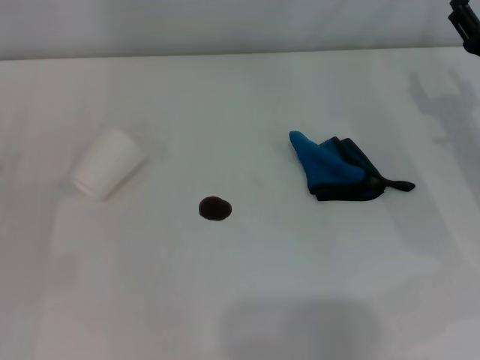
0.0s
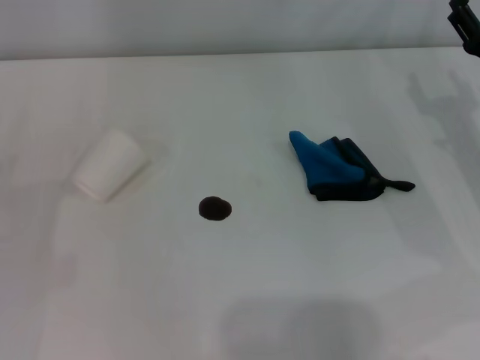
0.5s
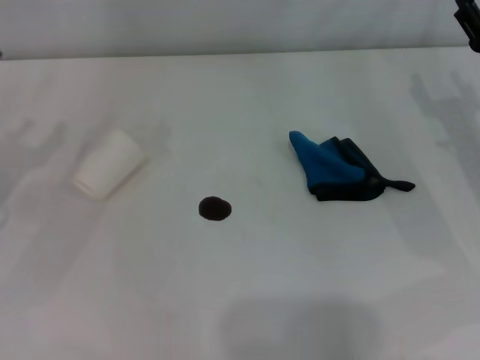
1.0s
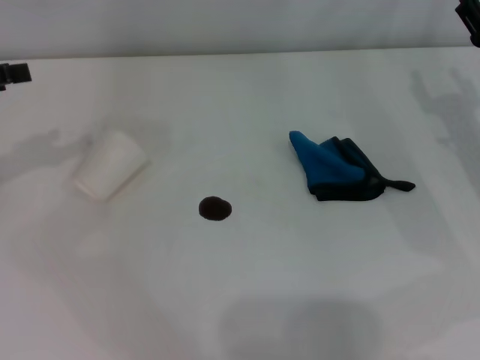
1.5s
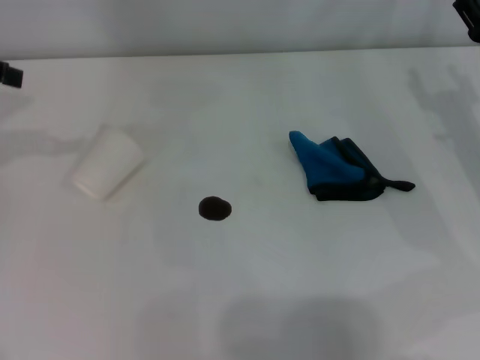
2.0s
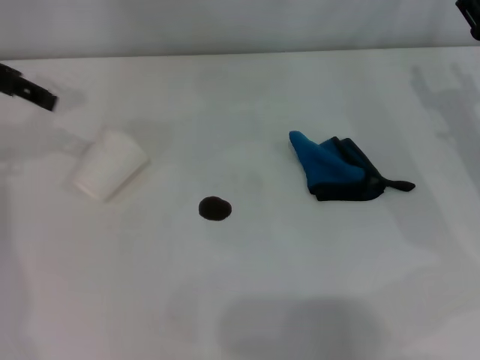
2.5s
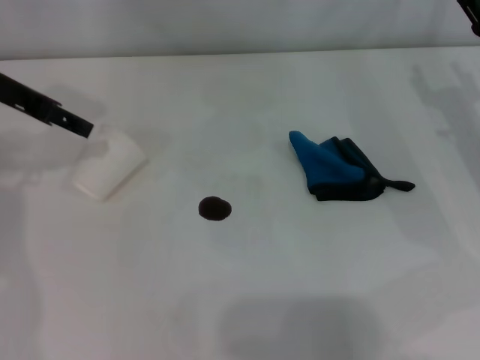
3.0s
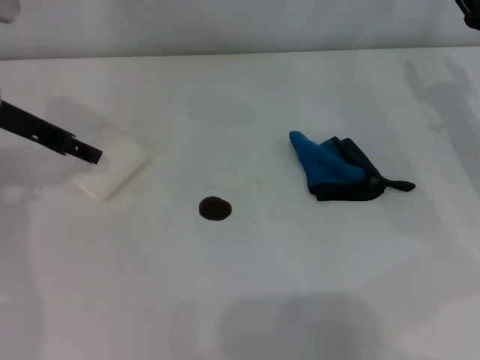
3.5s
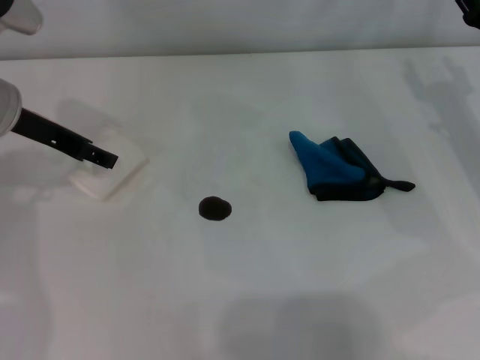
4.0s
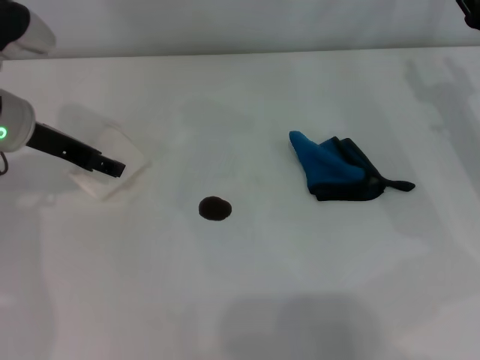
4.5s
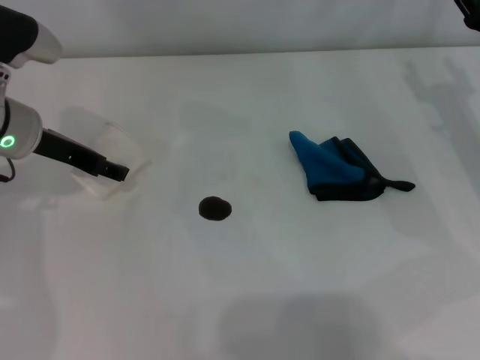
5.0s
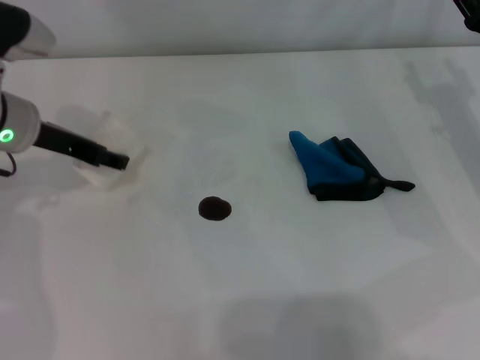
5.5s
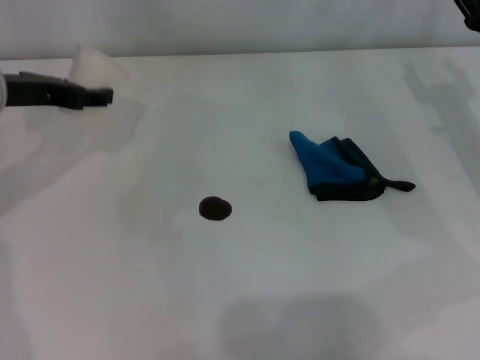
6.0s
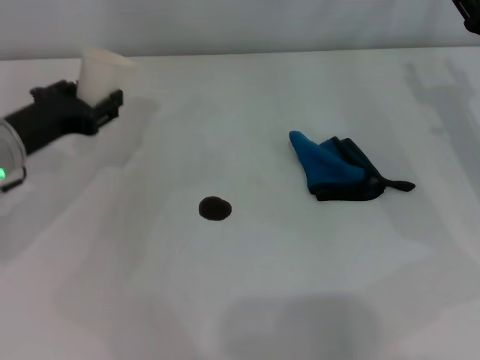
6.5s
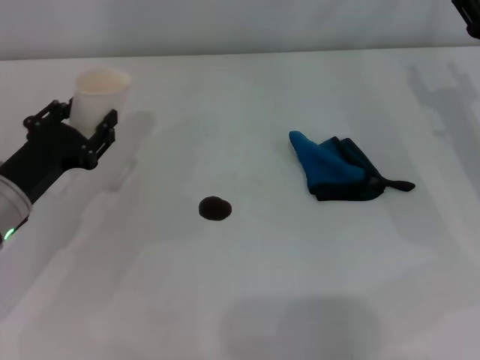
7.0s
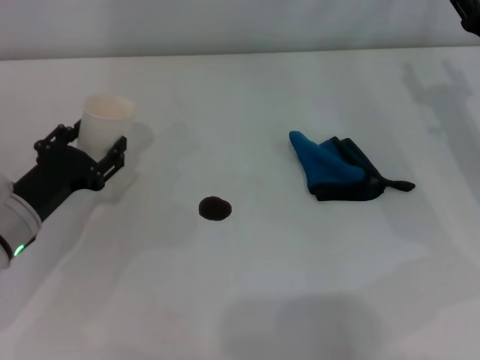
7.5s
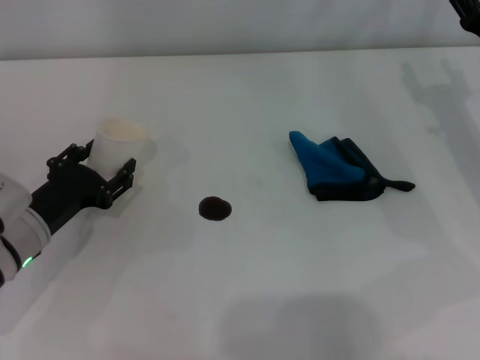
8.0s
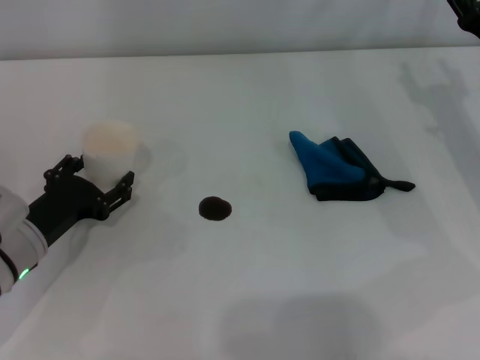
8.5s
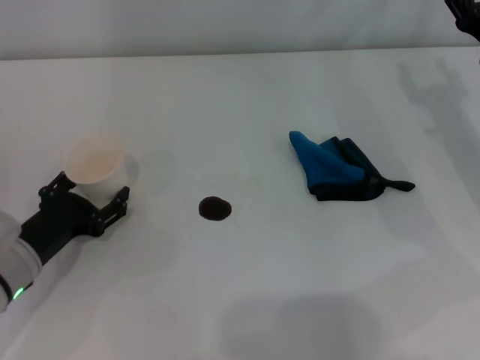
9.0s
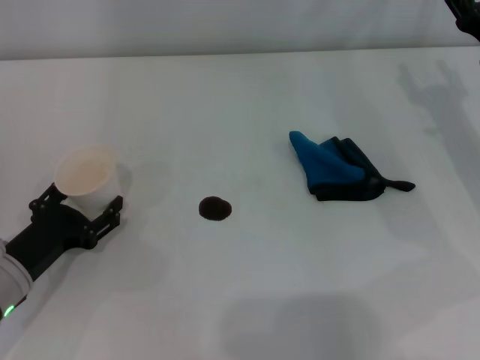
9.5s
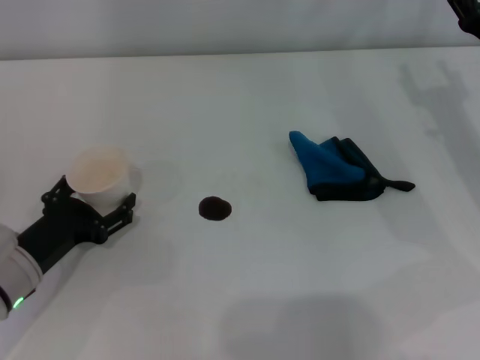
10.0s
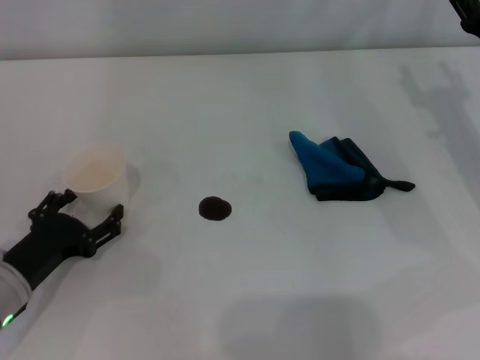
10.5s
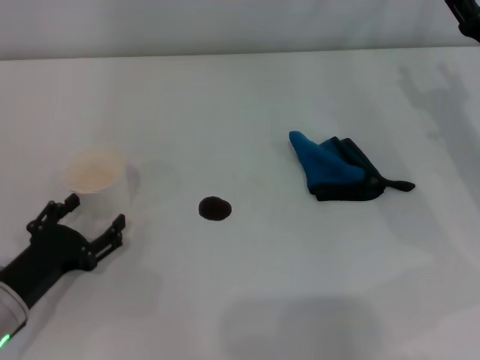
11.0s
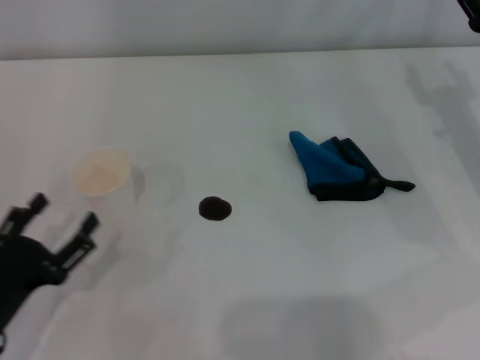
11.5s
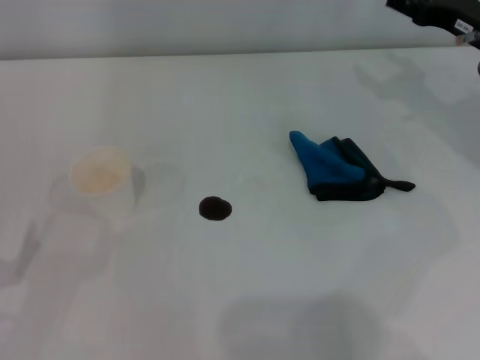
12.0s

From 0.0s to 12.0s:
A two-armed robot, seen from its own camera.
Step, from 0.0s to 5.0s: Grasp the paper cup with the left gripper.
Step, from 5.5s to 10.0s: Stand the paper cup upright with the left gripper.
From 2.0s to 4.0s: The left gripper shifts about 15 cm to the right and downward.
From 6.0s to 8.0s: The left gripper is displaced downward and backward by about 20 cm, and closes, then reopens.
From 8.0s to 10.0s: The left gripper opens.
From 10.0s to 12.0s: The left gripper goes approximately 15 cm backward and to the left. Meanwhile the right gripper shifts by some 5 cm.

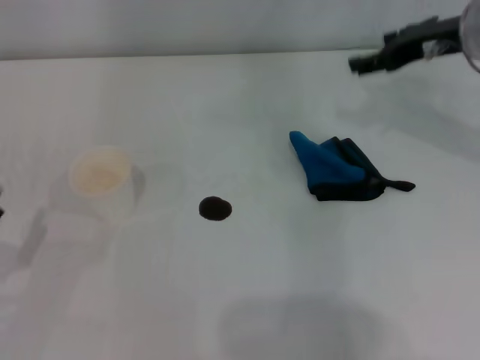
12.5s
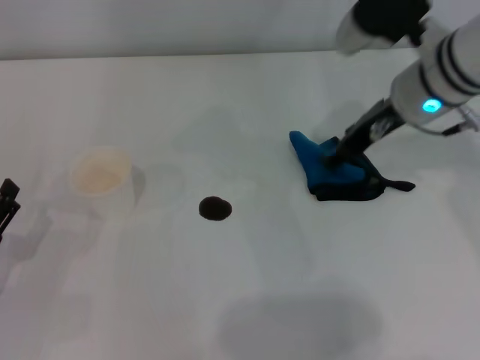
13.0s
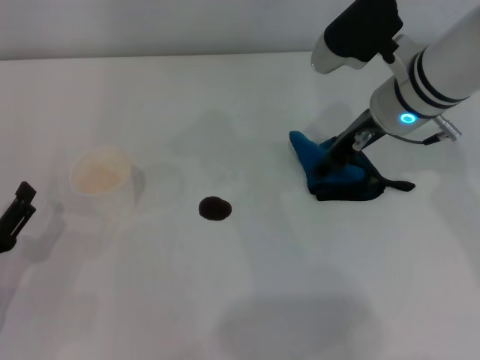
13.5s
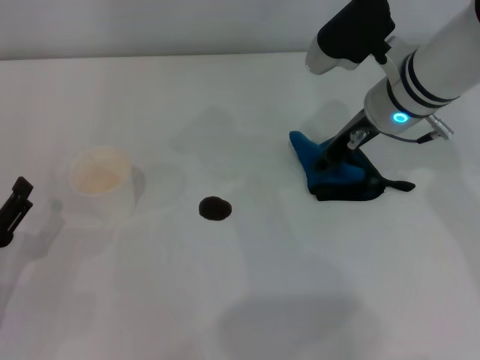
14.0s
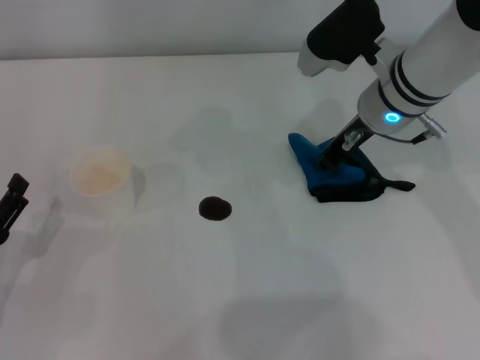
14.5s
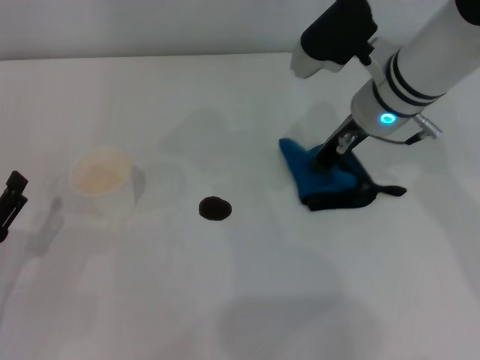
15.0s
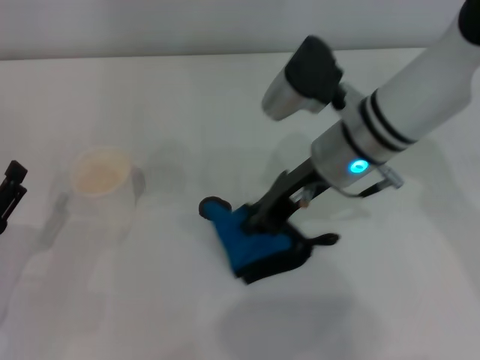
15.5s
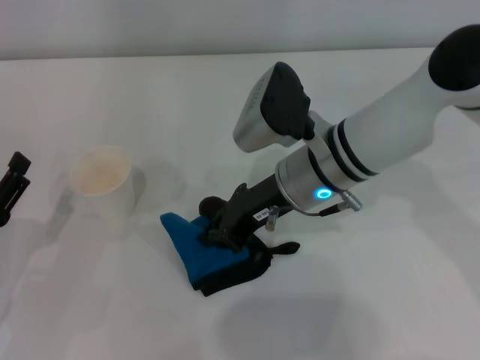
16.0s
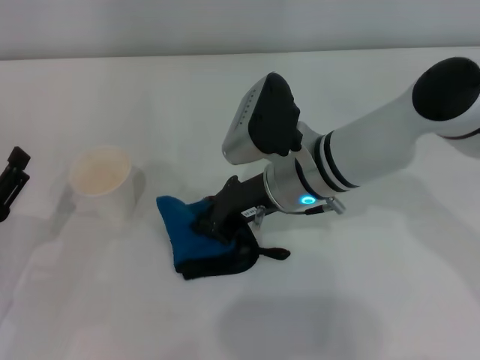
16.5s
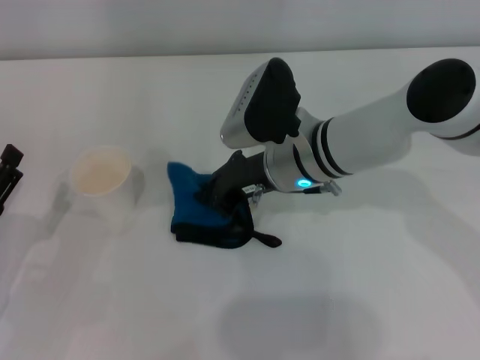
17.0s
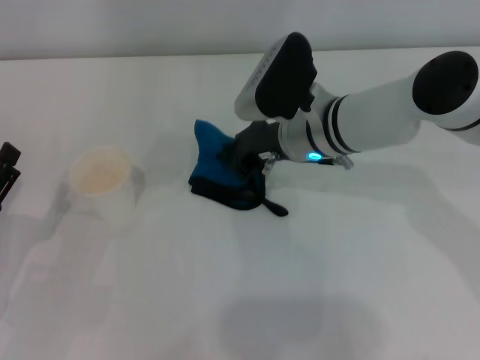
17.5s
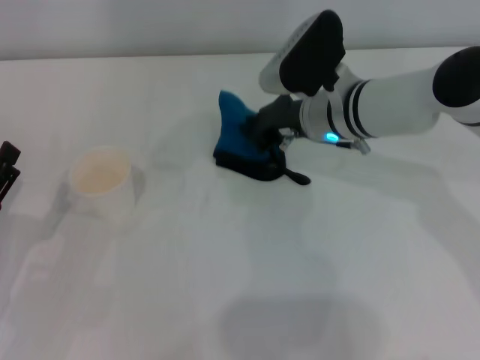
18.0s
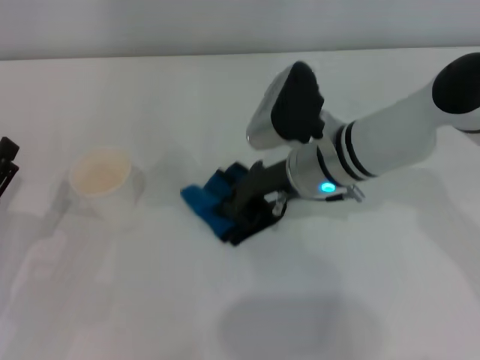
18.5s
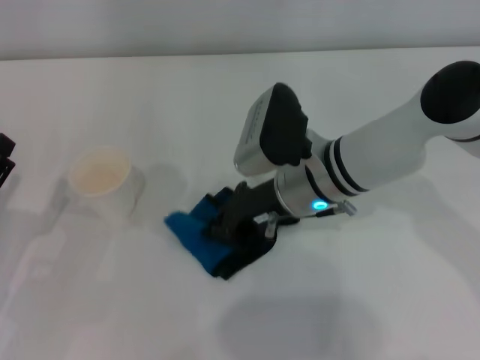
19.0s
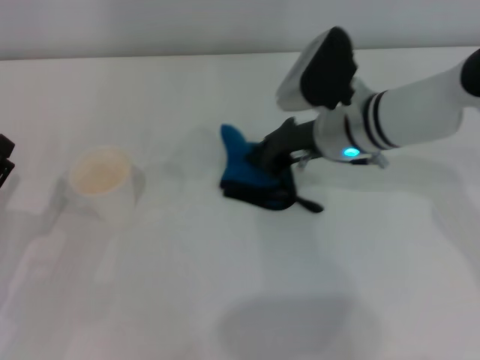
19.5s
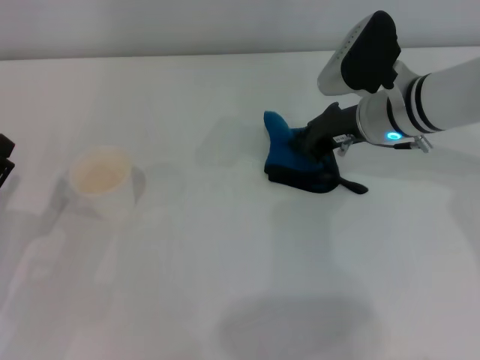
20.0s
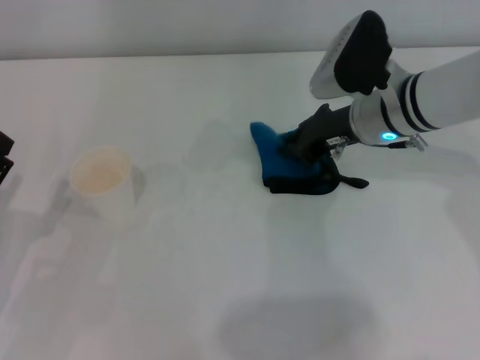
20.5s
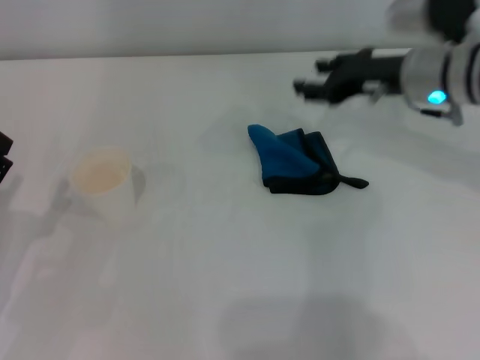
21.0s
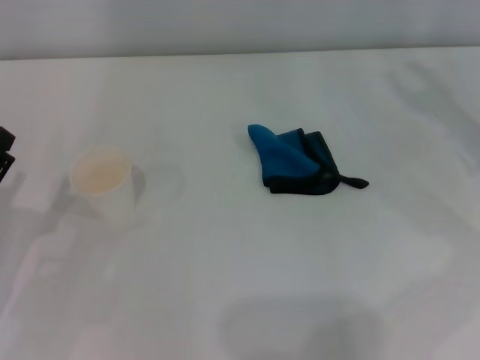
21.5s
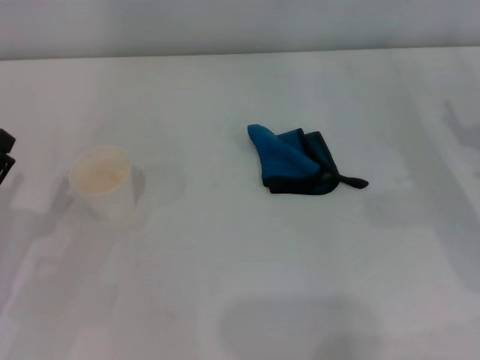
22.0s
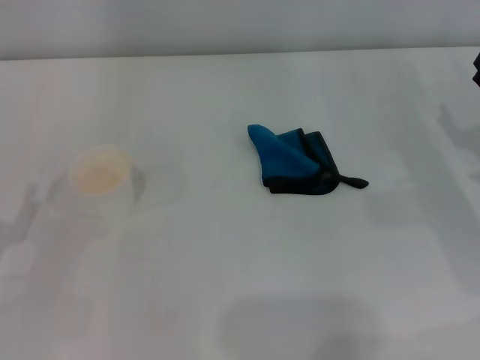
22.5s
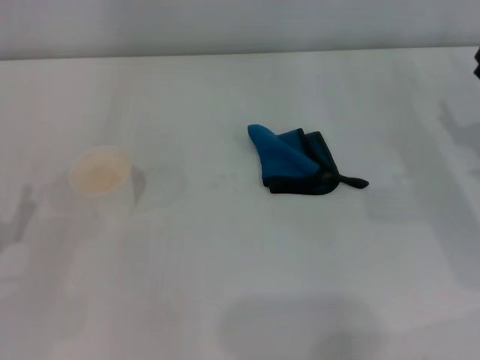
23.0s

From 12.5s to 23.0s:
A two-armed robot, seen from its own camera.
Step, from 12.5s to 14.5s: Grasp the rag with the right gripper.
Step, from 15.0s to 19.0s: Wipe the stains off the table with the right gripper.
Step, from 19.5s to 20.0s: Place the rag on the table with the right gripper.
From 12.5s to 14.5s: The right gripper moves to the left and downward, about 10 cm, and closes up.
From 14.5s to 16.5s: The right gripper moves to the left and backward, about 10 cm.
From 19.0s to 21.0s: The right gripper moves to the right and upward, about 15 cm.
From 21.0s to 23.0s: The right gripper moves to the right, backward and downward, some 20 cm, and opens its fingers.

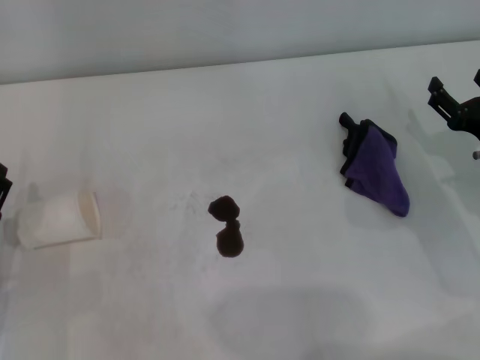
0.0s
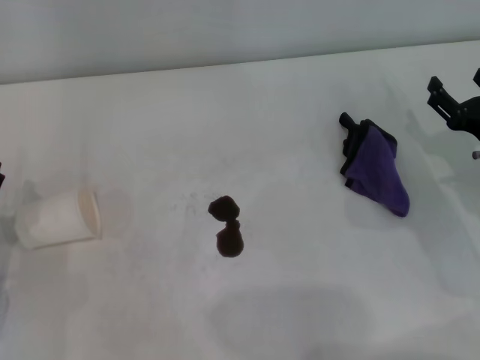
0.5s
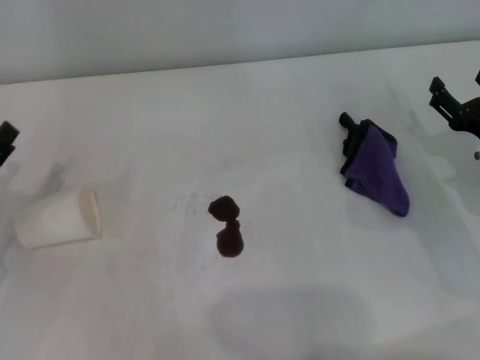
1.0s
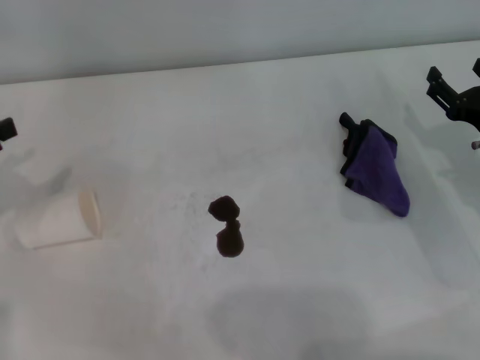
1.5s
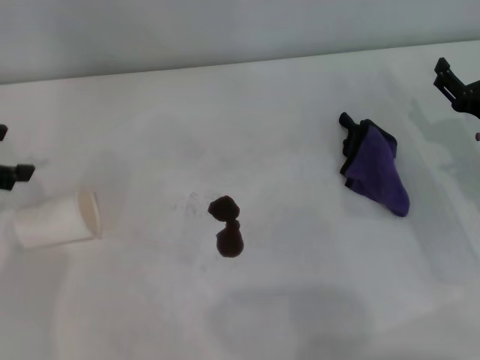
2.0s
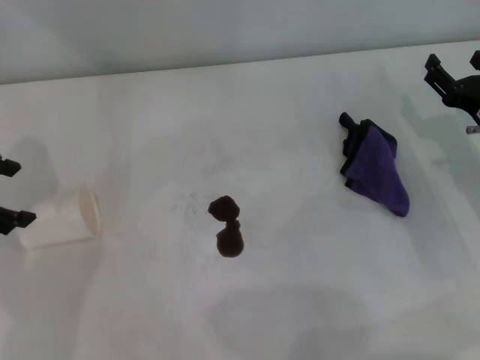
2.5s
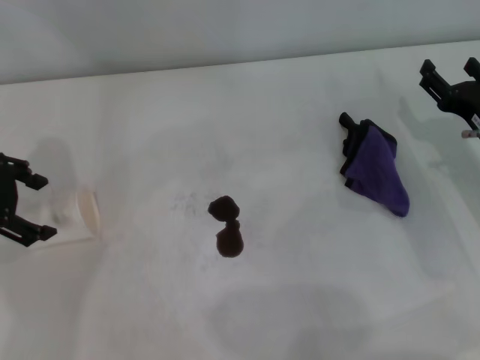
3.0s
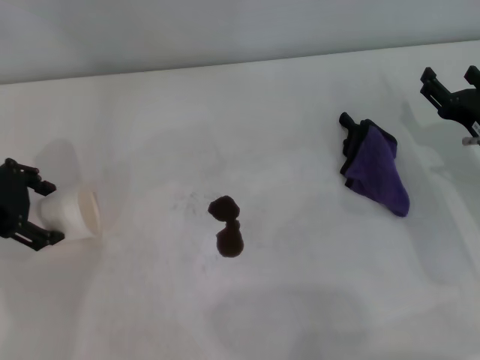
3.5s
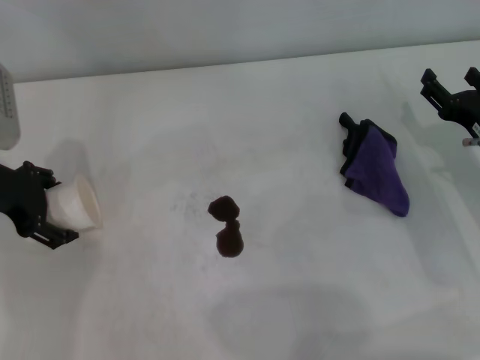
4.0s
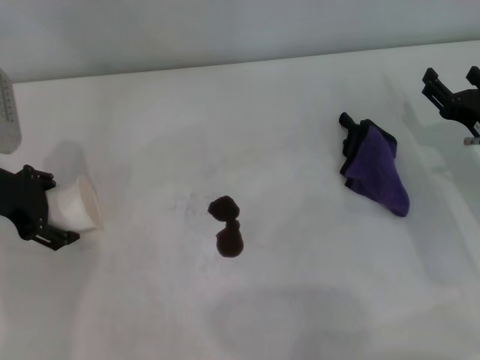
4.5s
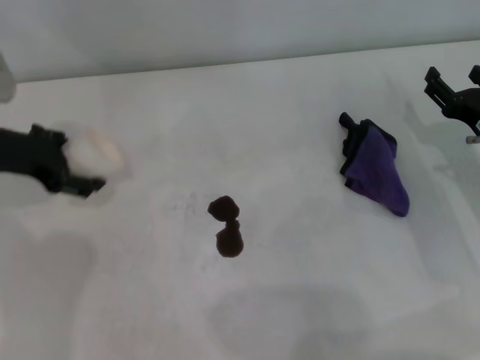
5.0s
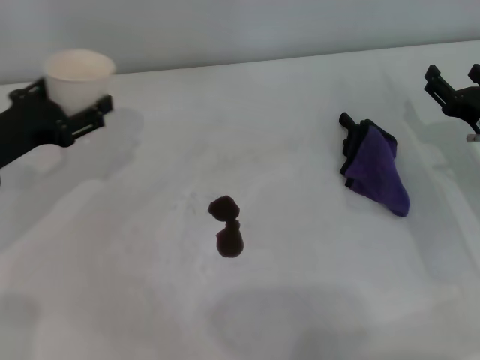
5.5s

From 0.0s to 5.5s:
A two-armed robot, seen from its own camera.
Step, from 0.0s to 4.5s: Grasp the paper cup with the left gripper.
From 0.0s to 2.0s: The left gripper is displaced upward and forward by about 20 cm.
From 2.0s to 3.5s: The left gripper shifts some 5 cm to the right.
From 3.5s to 5.5s: The left gripper shifts about 5 cm downward.
